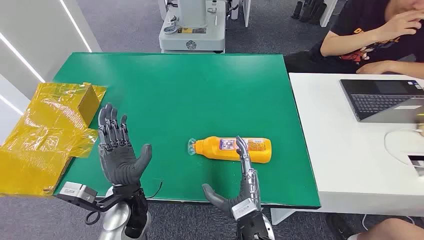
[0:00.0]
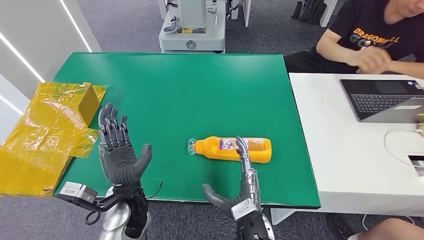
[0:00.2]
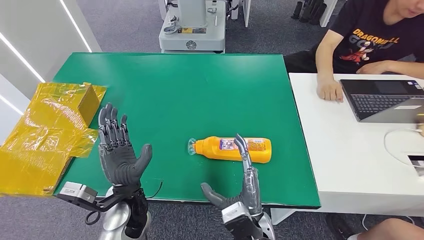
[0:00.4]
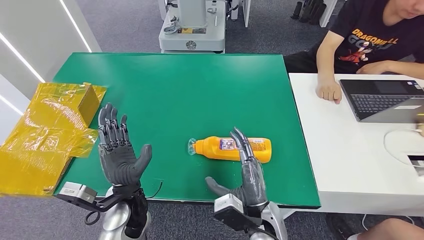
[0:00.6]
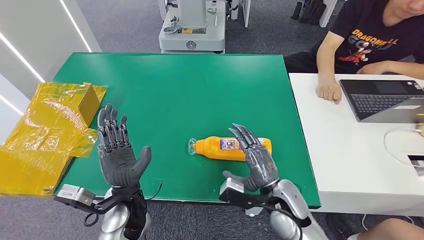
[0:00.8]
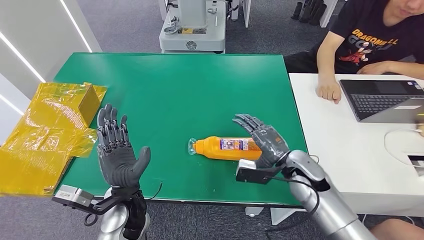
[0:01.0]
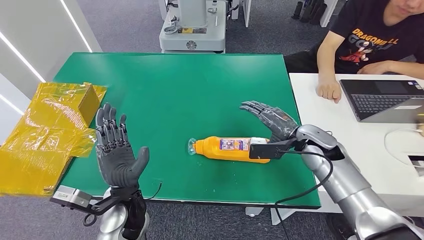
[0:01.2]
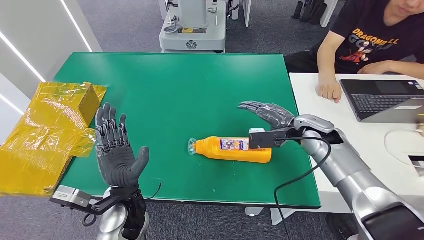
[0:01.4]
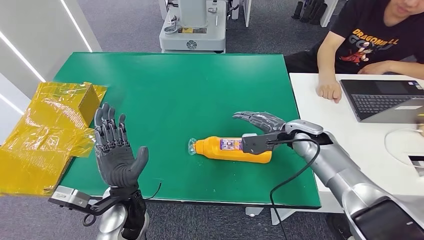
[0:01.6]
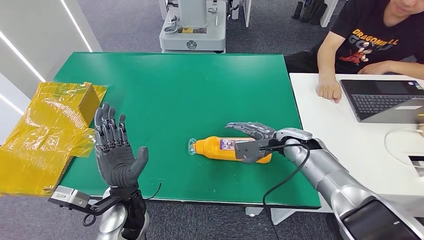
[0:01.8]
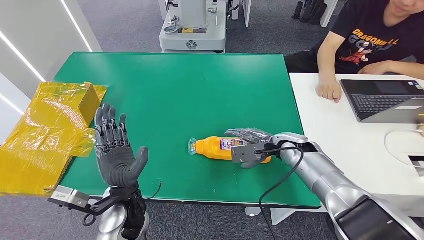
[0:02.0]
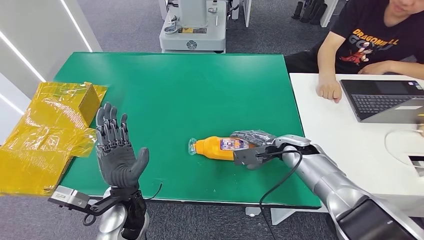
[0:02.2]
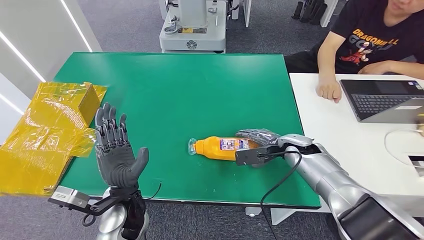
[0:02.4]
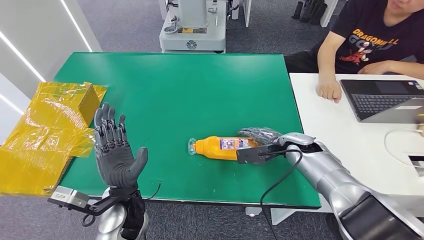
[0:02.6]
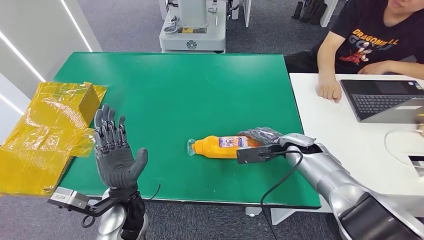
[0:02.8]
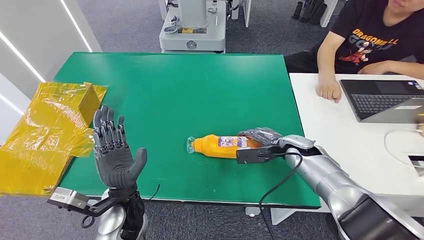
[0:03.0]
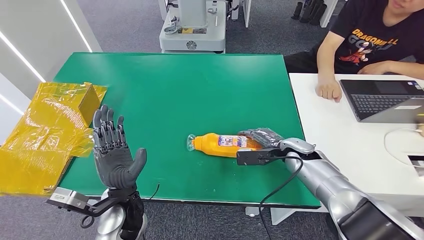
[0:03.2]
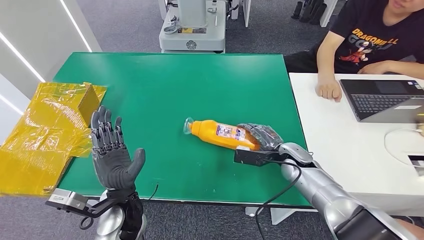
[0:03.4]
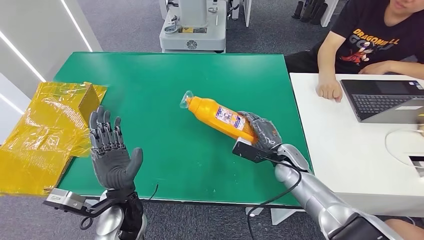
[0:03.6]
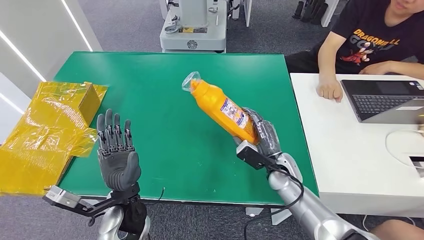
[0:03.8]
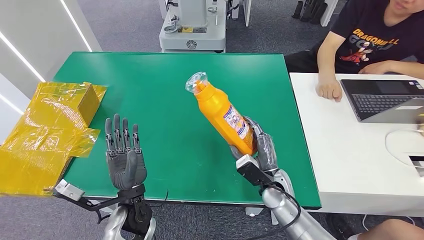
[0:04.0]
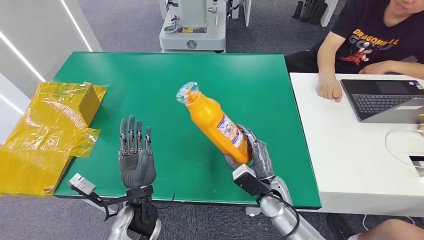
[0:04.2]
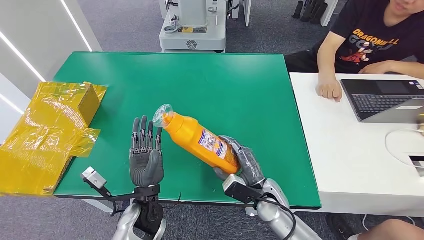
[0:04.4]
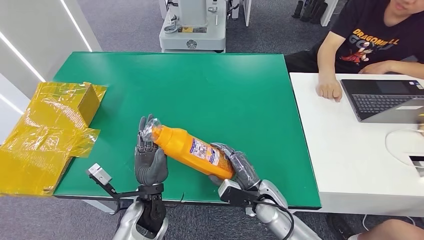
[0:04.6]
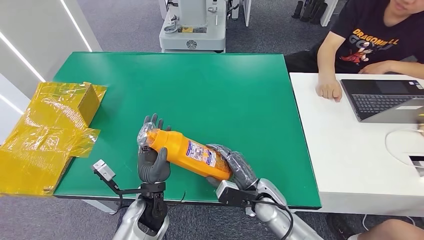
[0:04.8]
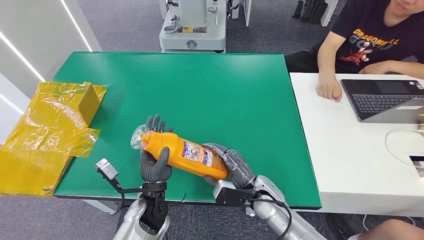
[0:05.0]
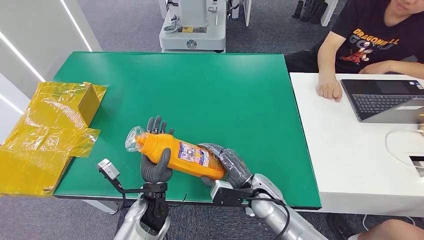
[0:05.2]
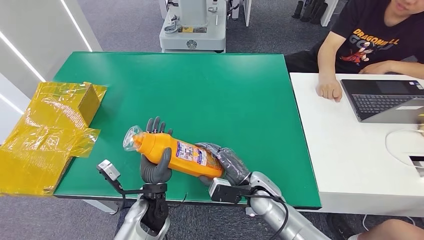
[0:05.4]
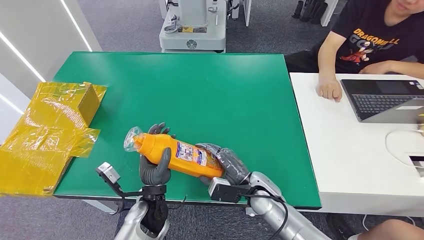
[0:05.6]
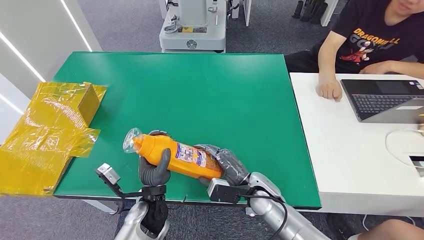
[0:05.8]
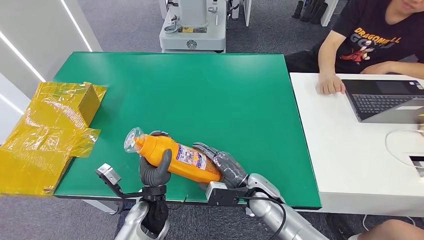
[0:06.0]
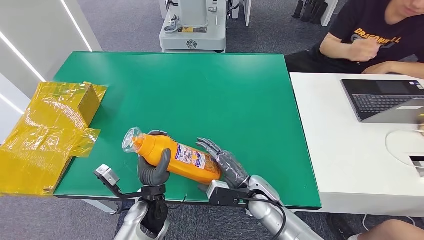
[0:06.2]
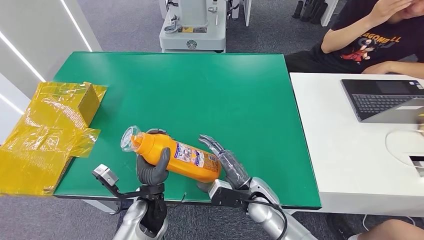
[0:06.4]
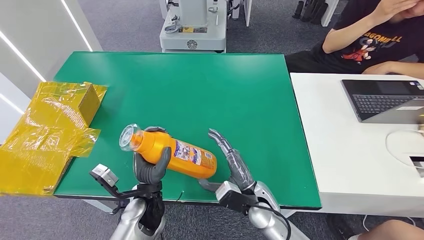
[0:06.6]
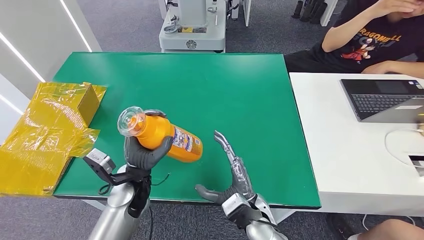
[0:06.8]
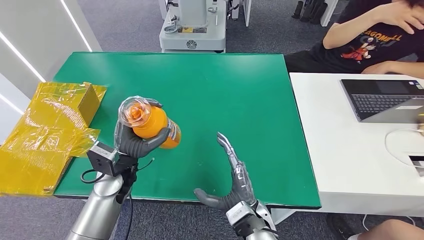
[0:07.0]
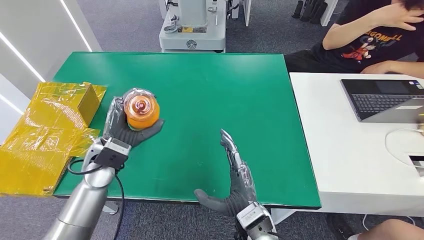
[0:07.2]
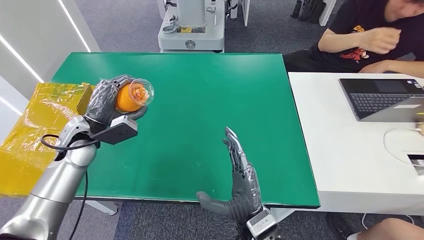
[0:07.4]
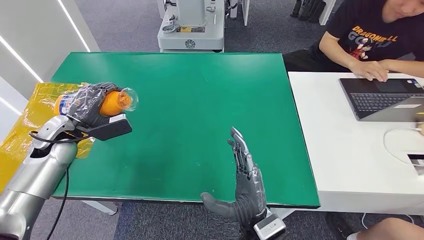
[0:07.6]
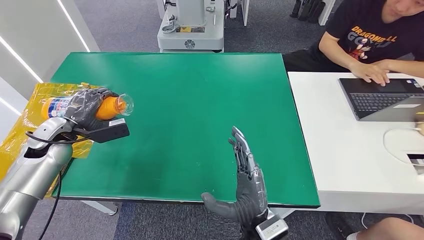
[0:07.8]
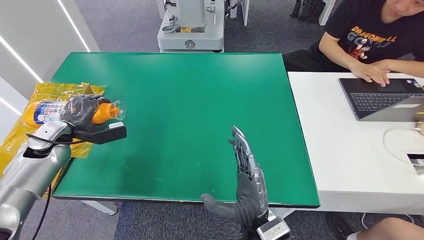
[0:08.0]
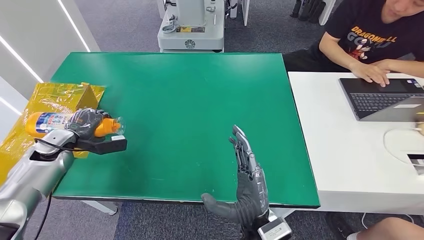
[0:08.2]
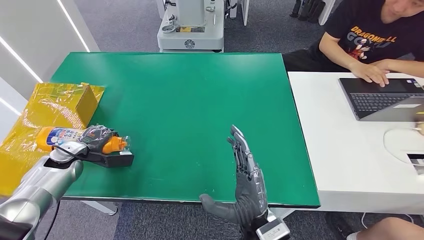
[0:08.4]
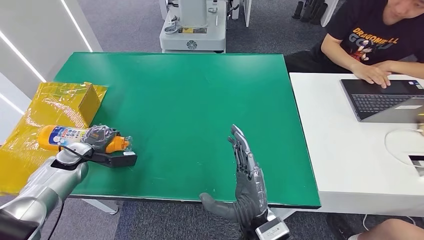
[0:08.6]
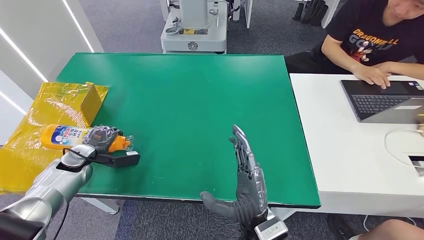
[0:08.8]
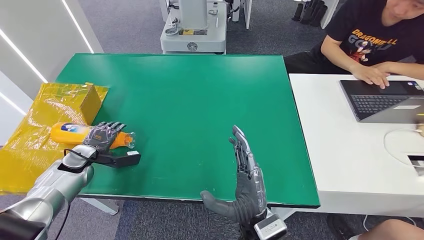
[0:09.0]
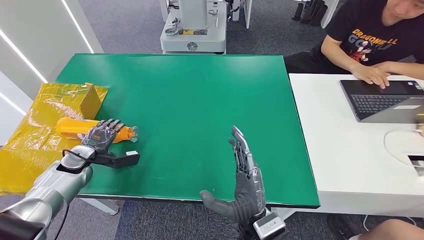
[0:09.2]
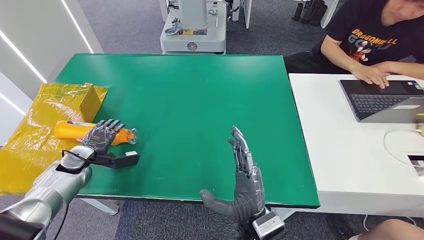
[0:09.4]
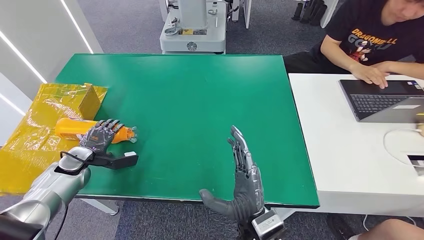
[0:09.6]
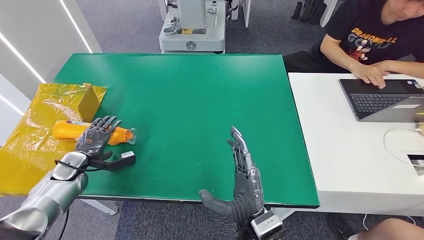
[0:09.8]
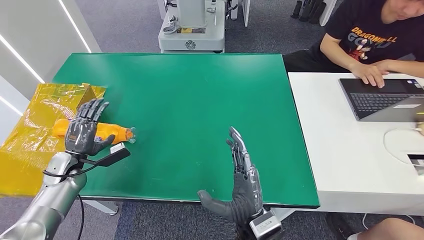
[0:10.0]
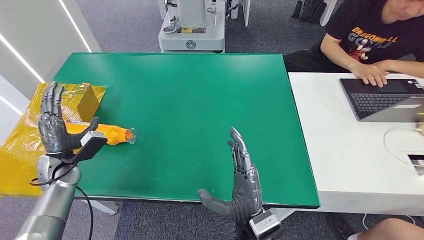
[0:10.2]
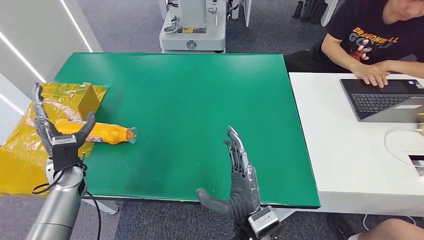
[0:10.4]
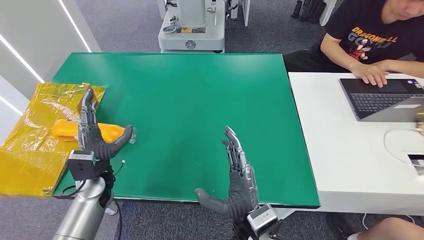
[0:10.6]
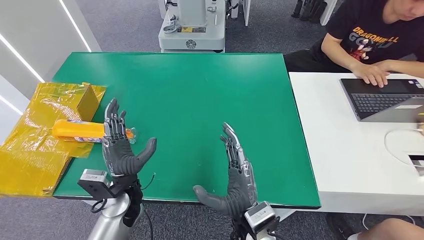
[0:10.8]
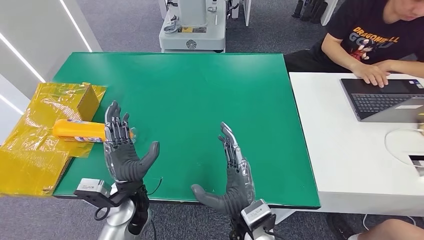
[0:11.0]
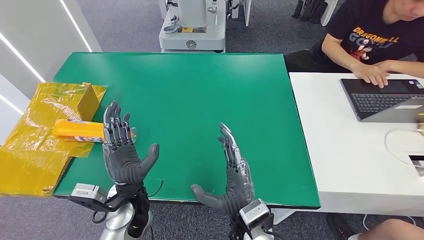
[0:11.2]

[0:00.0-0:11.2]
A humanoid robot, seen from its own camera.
Step, 0:00.0 to 0:04.0: Pick up the bottle from the table.
Step, 0:04.4 to 0:11.2: Turn the bottle to the front side.
0:01.6 to 0:03.2: The right hand travels downward by some 5 cm.
0:03.2 to 0:04.8: The right hand heads backward, to the left and downward, covering approximately 15 cm, while the left hand shifts by approximately 5 cm.
0:04.8 to 0:06.4: The hands move only a little.
0:08.0 to 0:09.6: The left hand moves downward, some 10 cm.
0:09.6 to 0:11.2: The left hand heads to the right and backward, covering roughly 30 cm.
